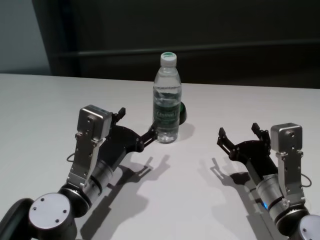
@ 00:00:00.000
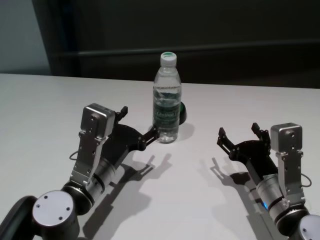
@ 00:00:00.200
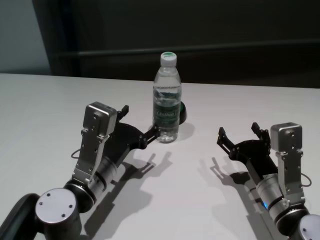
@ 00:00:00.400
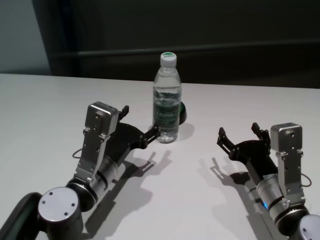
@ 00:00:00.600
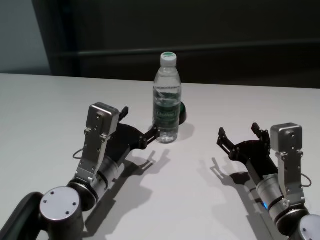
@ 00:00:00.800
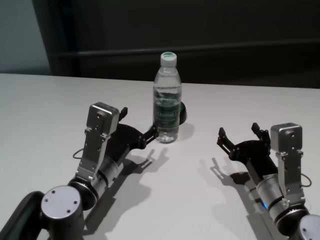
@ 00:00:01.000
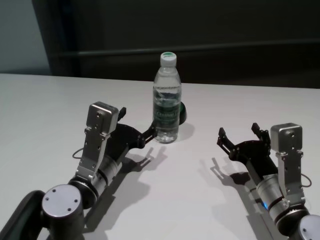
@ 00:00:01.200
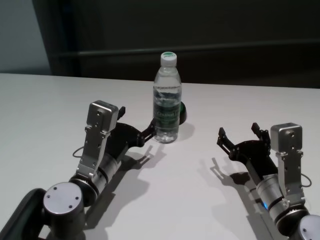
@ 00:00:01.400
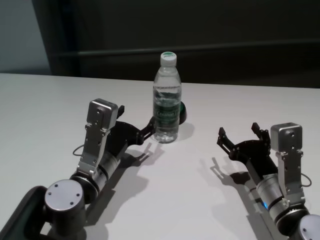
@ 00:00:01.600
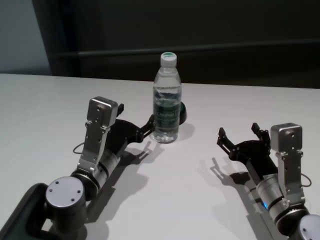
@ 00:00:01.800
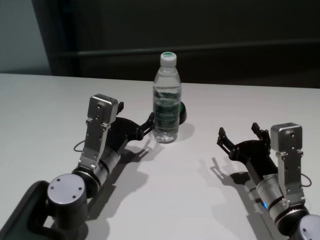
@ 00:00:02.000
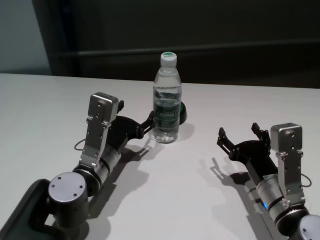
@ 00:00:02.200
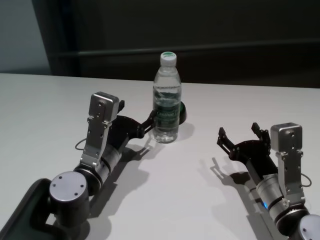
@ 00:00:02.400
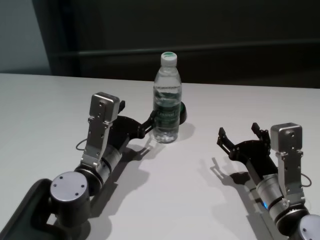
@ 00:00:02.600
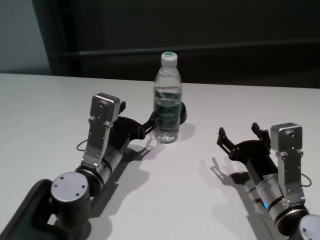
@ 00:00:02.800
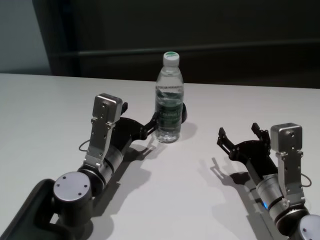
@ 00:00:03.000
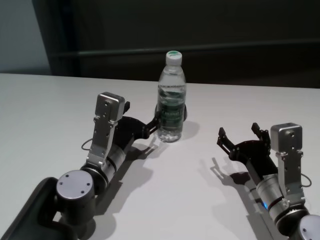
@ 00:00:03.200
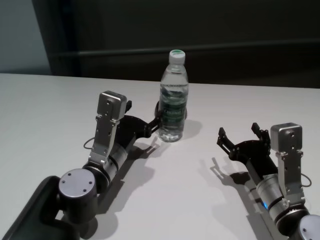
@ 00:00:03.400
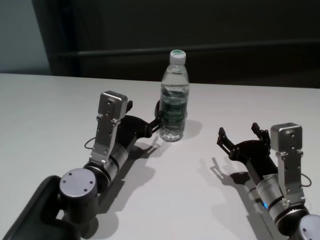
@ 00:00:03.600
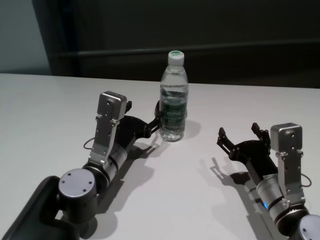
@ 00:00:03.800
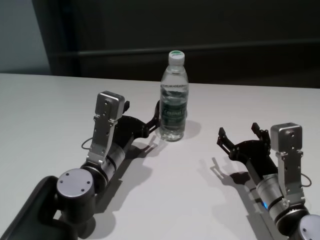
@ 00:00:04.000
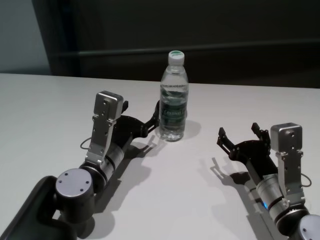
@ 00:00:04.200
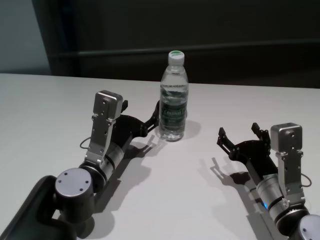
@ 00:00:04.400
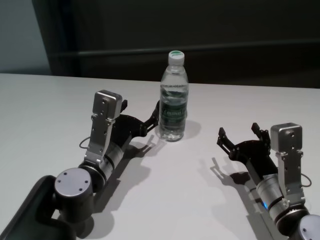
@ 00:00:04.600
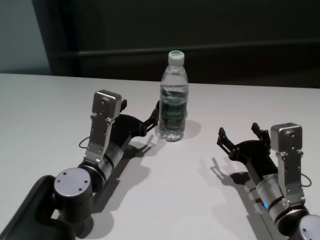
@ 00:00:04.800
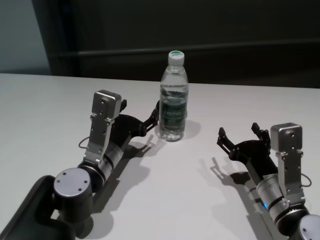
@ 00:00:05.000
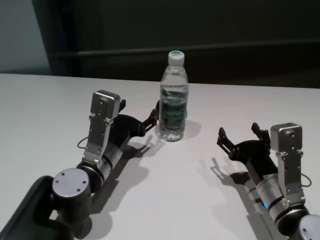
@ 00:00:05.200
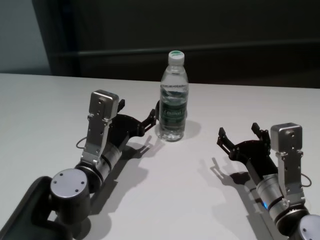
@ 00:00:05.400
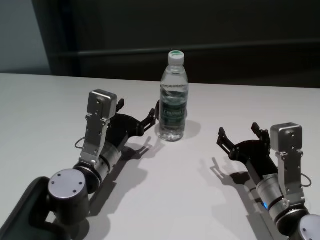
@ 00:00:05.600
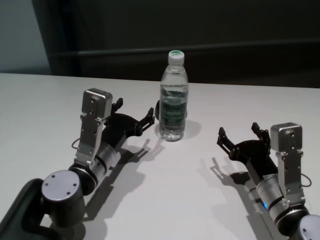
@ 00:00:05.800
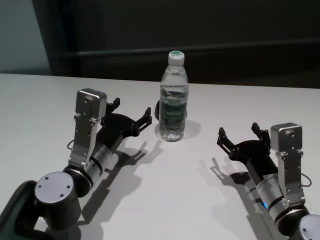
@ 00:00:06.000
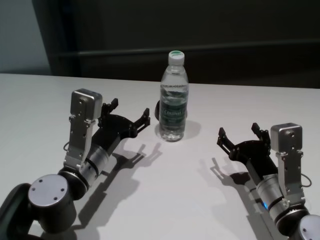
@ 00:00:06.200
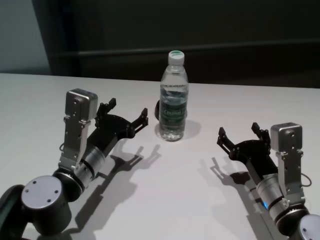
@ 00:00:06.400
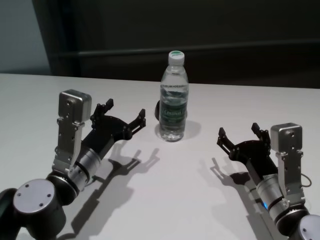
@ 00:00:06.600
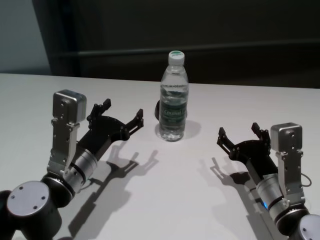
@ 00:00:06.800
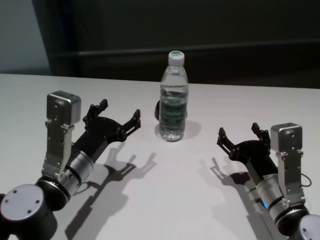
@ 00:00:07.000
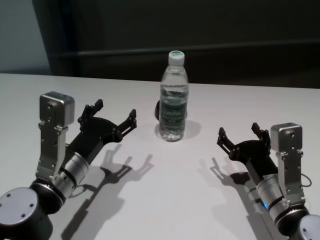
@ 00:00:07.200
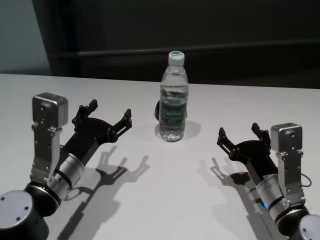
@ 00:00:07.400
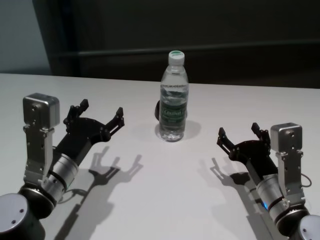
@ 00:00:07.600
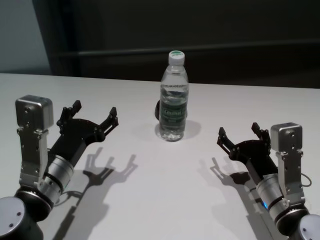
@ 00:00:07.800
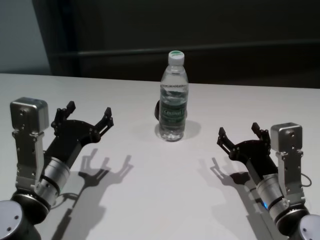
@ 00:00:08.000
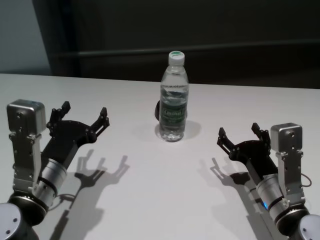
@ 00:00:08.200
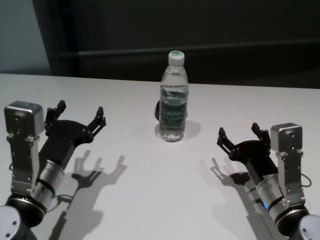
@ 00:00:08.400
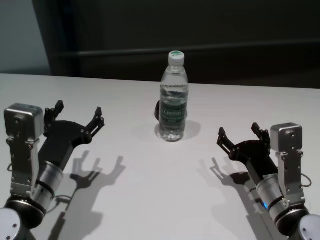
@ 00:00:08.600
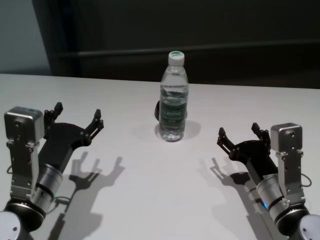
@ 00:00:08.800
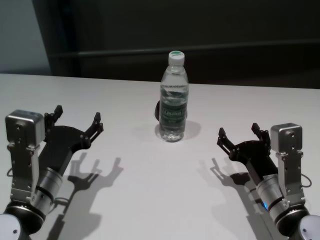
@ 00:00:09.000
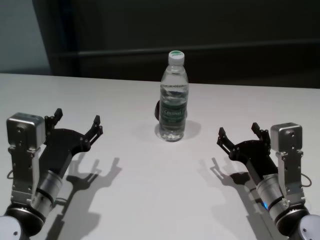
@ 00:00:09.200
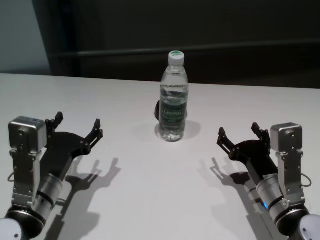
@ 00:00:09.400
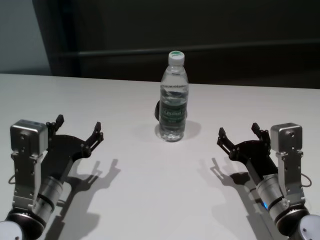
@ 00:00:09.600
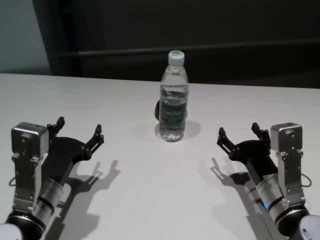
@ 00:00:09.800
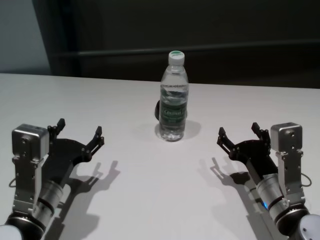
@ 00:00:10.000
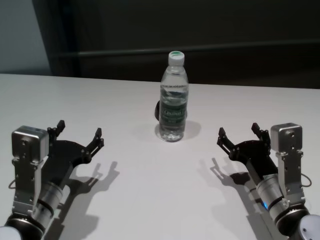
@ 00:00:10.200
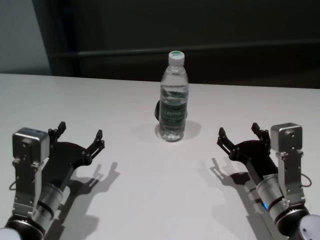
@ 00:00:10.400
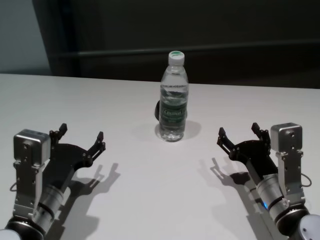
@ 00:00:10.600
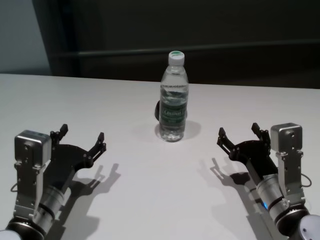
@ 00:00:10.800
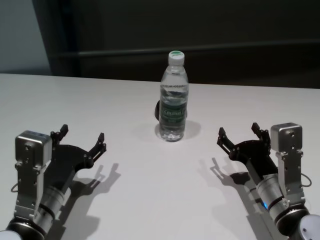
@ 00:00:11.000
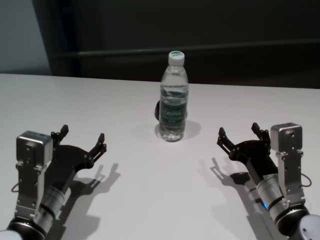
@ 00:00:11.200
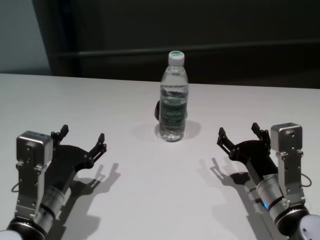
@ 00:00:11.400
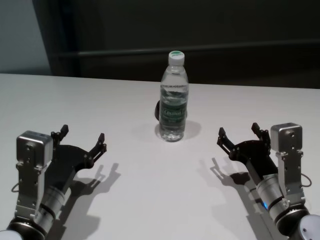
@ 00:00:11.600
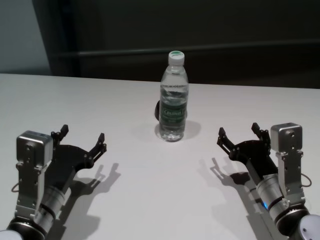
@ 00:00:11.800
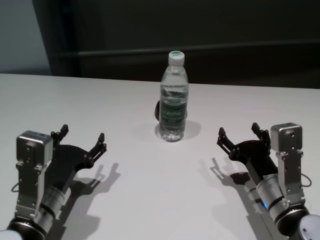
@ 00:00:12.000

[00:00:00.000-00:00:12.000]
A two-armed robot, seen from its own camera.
Task of the whole recording: return to a safe position after touching an obstacle with your arm on the white table.
Step, 00:00:00.000 to 00:00:04.400: Touch the bottle with left gripper.

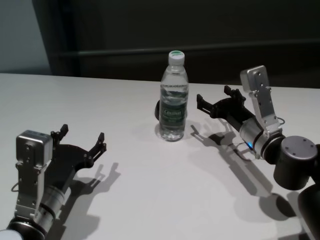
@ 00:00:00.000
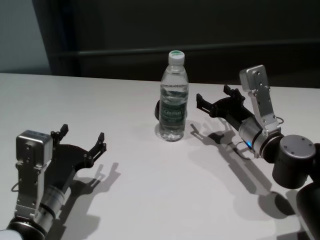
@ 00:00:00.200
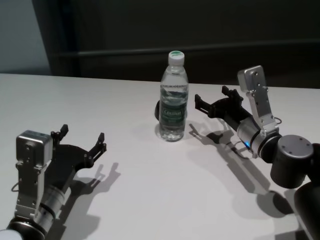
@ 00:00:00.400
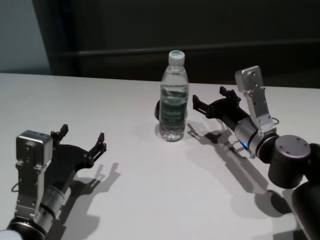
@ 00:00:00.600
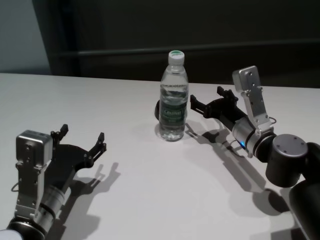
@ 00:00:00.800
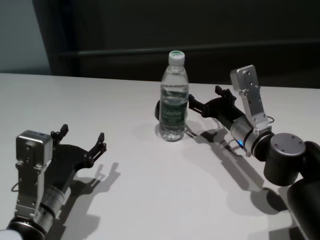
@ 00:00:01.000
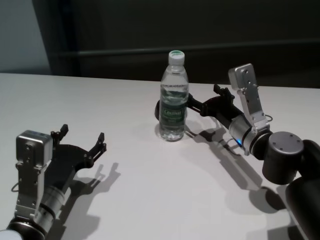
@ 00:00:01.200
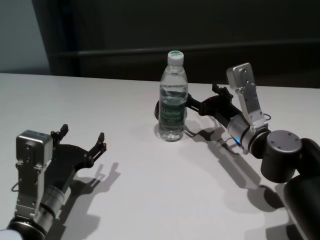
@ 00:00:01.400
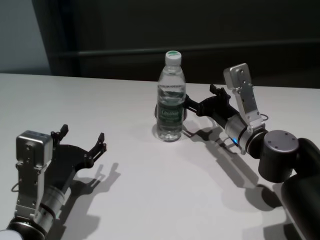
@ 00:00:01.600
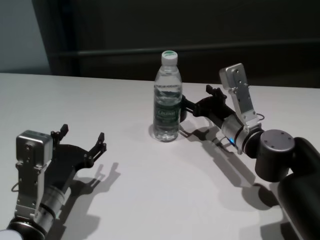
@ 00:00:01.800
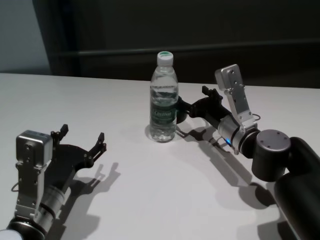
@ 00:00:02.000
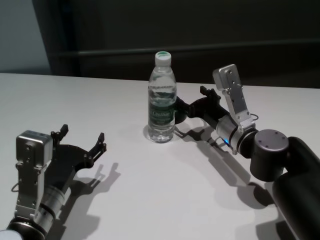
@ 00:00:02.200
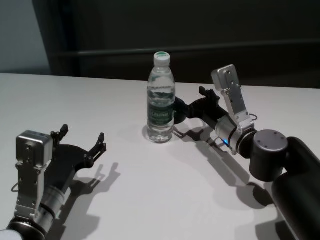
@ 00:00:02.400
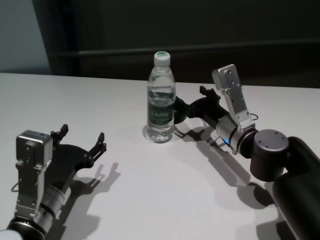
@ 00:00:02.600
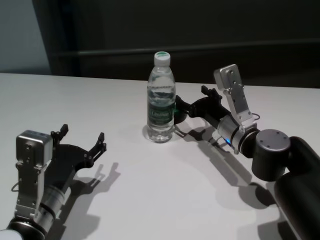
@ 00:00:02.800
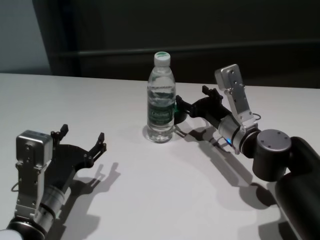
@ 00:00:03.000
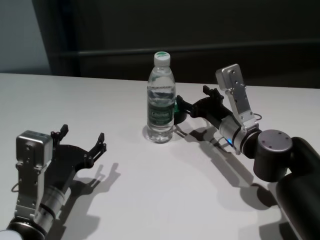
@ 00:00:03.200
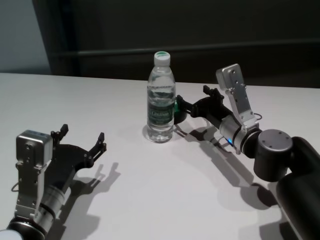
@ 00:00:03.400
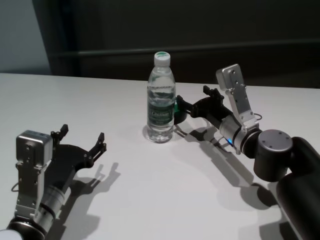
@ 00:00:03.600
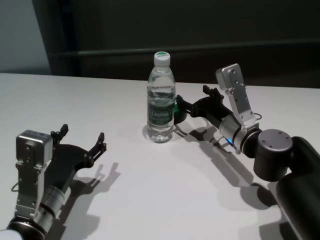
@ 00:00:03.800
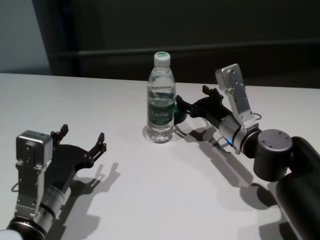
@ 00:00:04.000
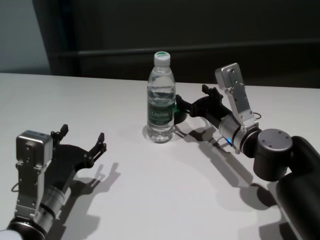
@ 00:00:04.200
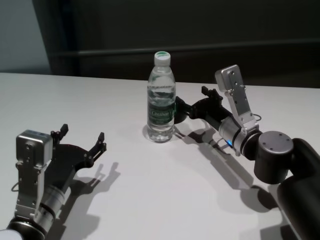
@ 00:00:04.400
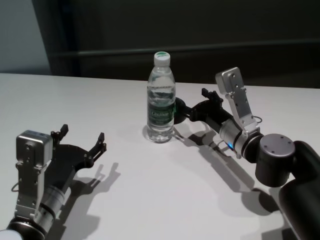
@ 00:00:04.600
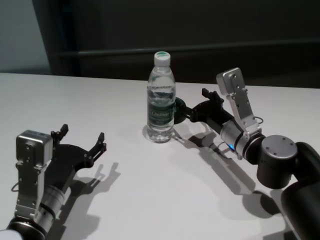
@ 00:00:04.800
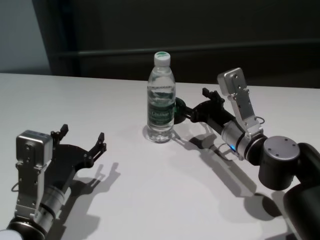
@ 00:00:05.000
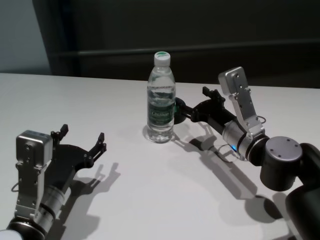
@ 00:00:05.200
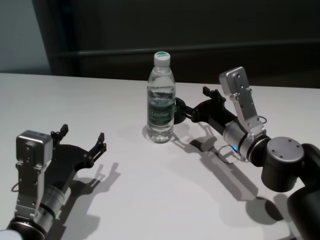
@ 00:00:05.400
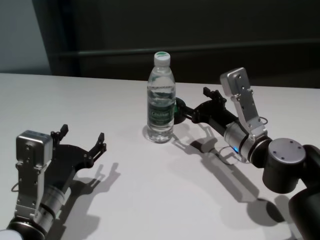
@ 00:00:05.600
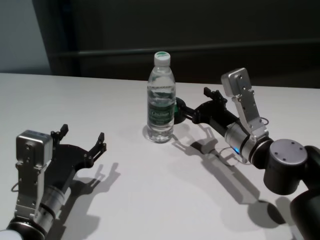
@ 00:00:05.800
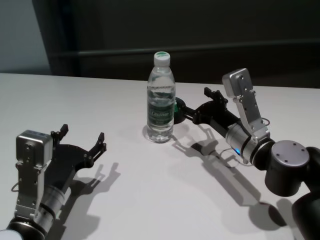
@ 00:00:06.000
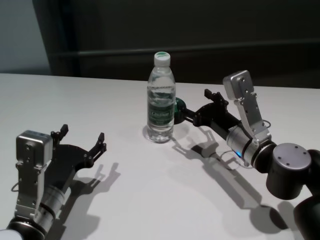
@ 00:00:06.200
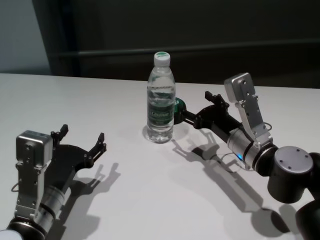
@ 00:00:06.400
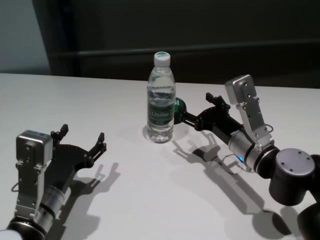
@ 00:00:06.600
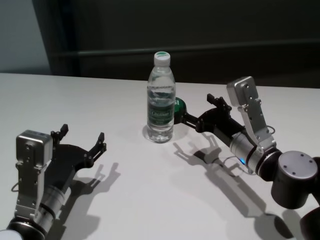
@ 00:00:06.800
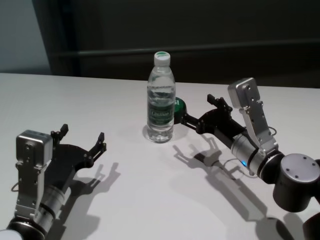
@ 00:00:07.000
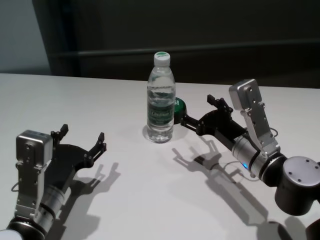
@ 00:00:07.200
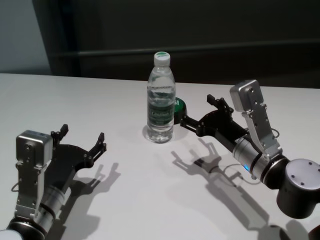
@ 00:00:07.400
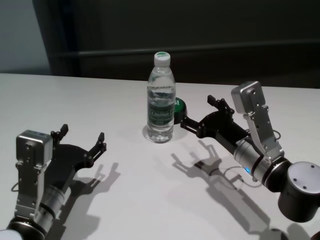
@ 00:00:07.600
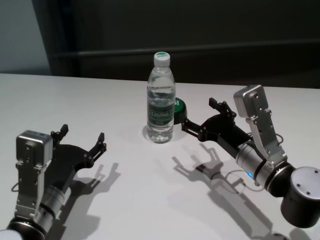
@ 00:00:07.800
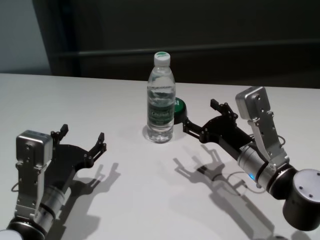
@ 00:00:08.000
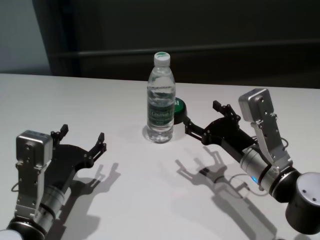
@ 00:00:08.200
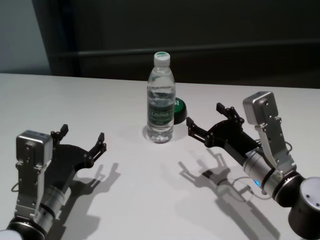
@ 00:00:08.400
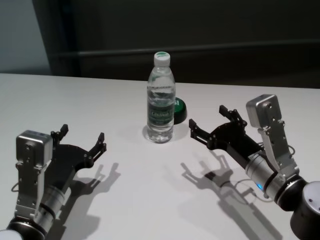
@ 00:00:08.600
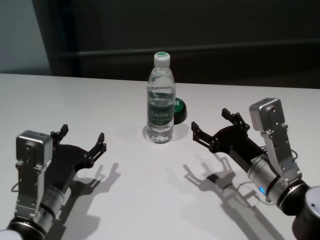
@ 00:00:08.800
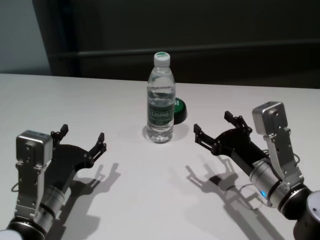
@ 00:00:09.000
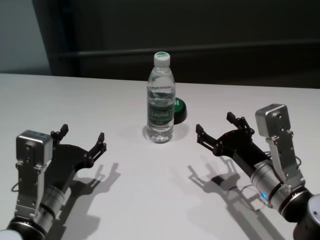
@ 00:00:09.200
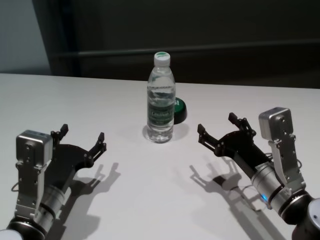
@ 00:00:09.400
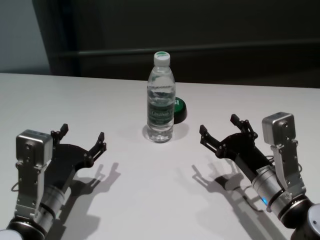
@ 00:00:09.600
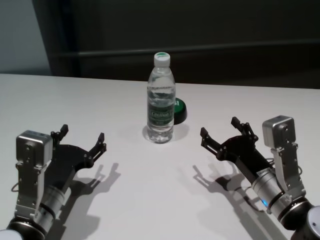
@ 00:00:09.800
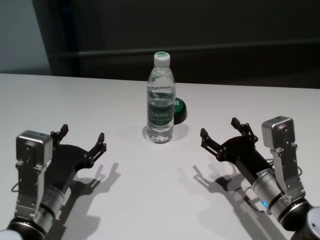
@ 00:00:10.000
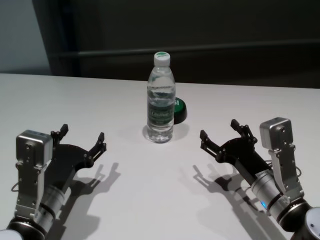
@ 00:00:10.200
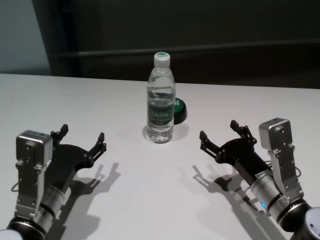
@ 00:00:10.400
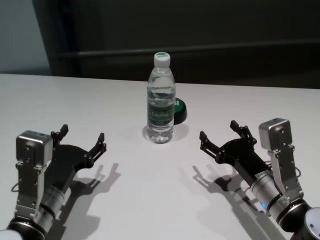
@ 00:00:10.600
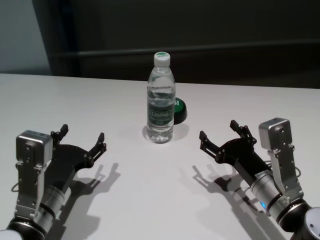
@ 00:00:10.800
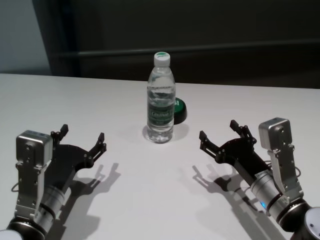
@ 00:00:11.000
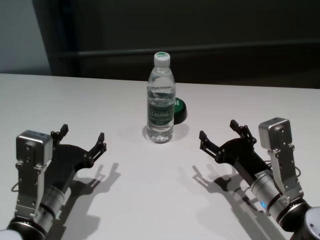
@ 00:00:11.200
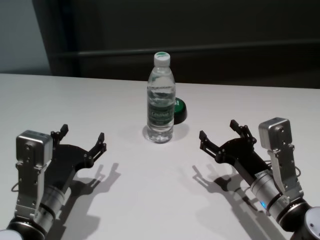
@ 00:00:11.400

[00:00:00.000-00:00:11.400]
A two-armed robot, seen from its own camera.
Task of the whole recording: return to a safe position after touching an obstacle with your arm on the white table.
Step, 00:00:00.000 to 00:00:05.200: Touch the bottle with right gripper.
